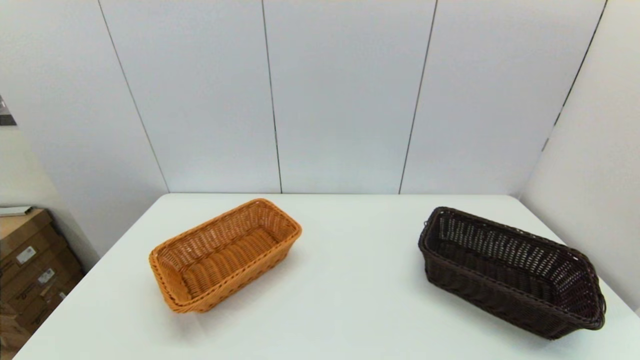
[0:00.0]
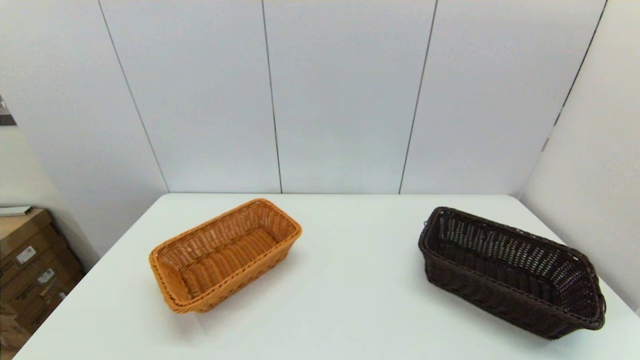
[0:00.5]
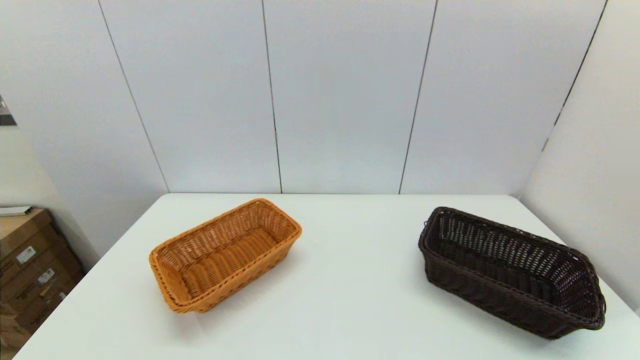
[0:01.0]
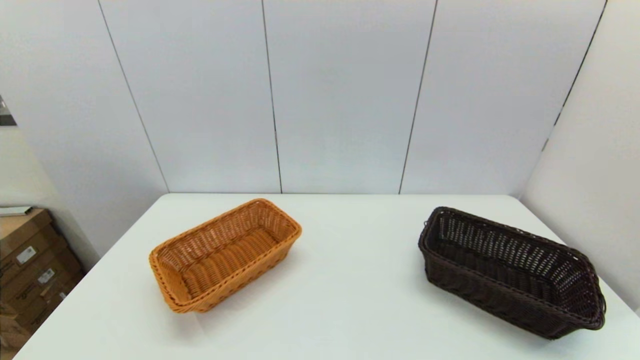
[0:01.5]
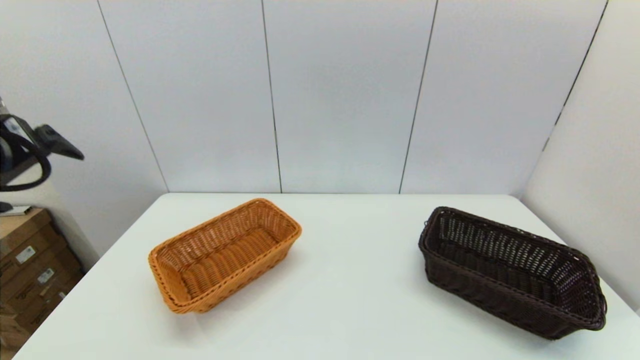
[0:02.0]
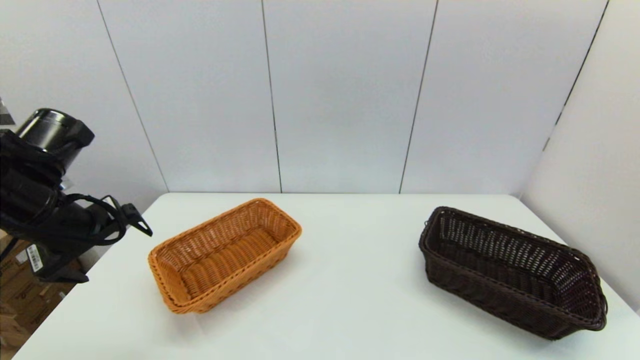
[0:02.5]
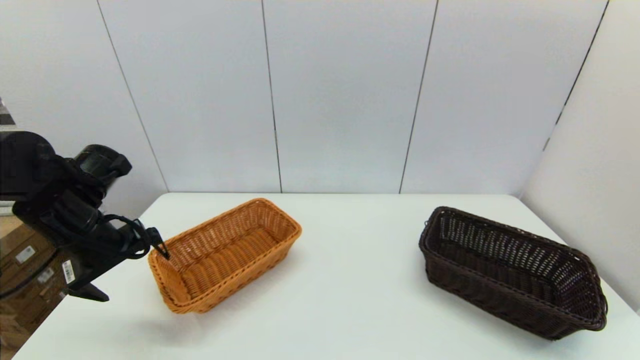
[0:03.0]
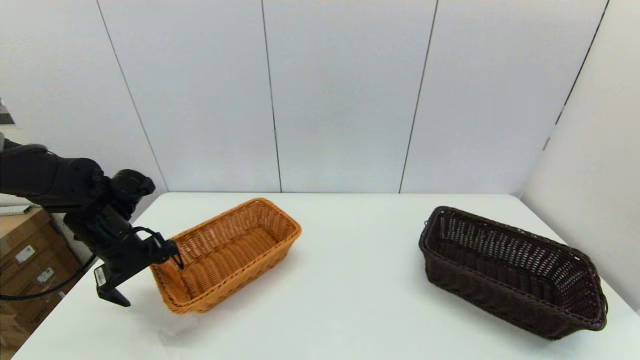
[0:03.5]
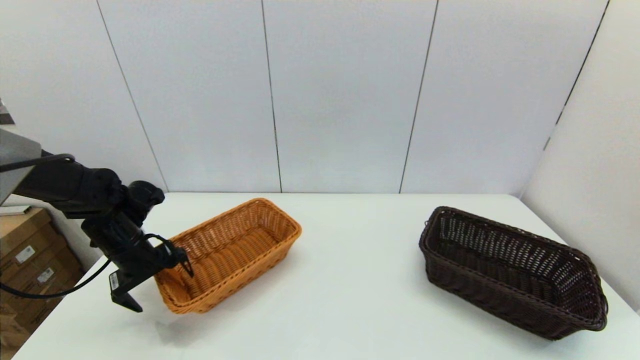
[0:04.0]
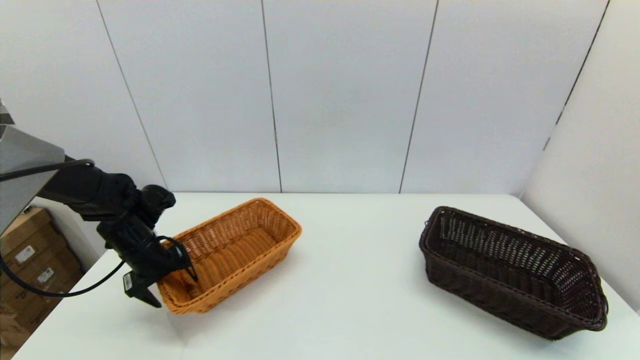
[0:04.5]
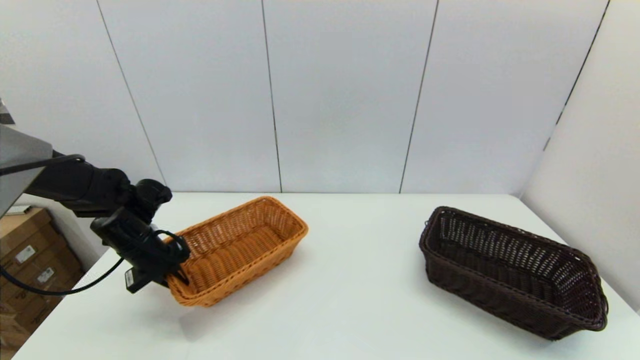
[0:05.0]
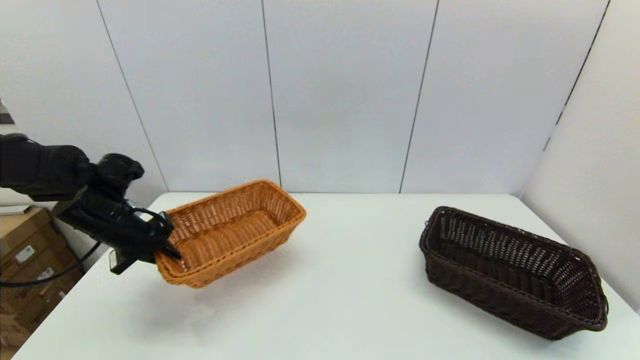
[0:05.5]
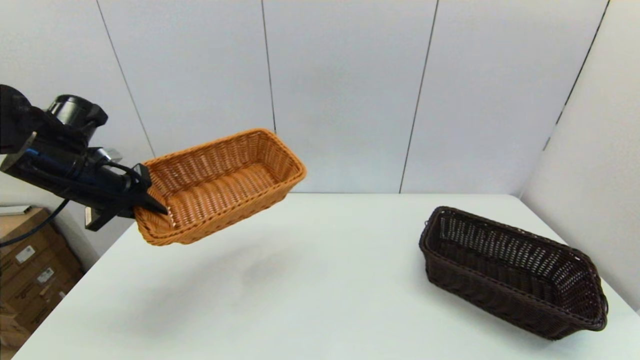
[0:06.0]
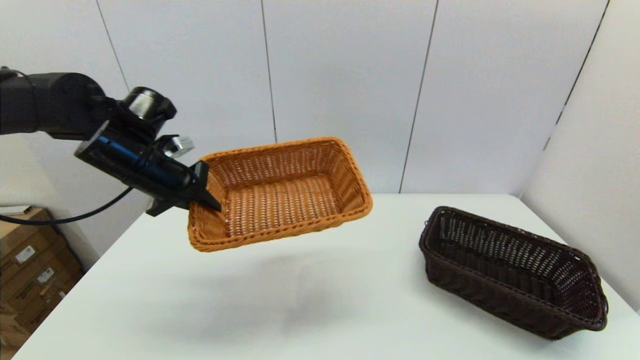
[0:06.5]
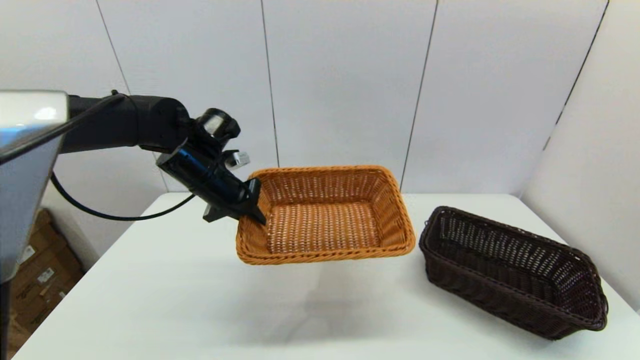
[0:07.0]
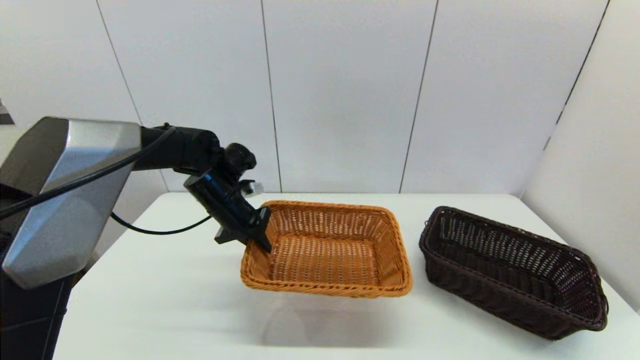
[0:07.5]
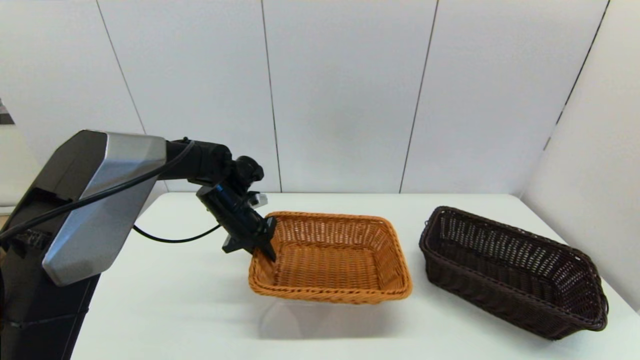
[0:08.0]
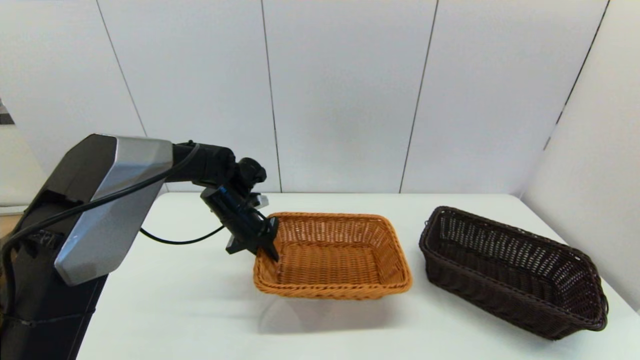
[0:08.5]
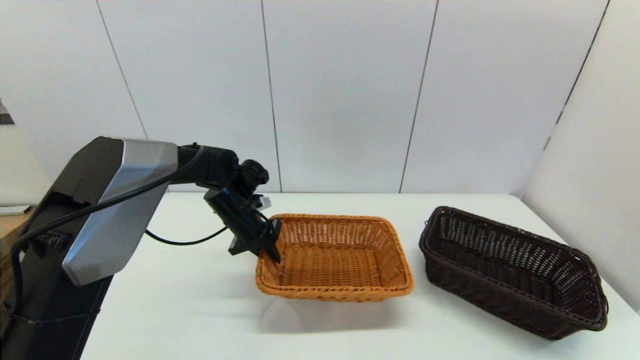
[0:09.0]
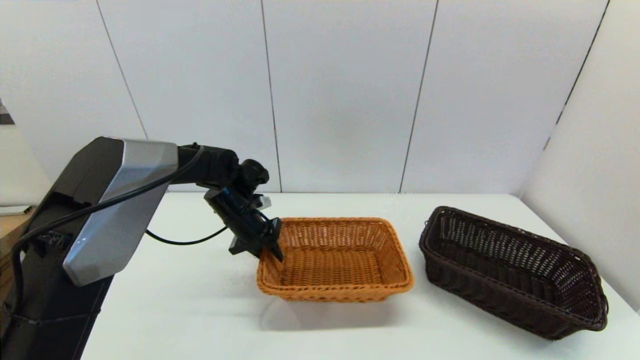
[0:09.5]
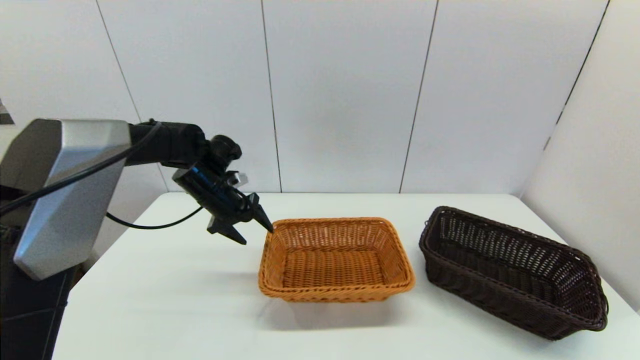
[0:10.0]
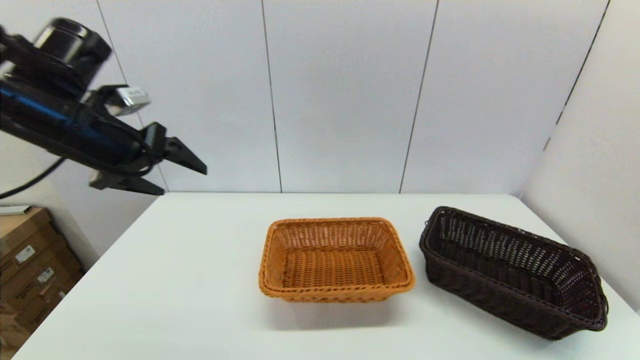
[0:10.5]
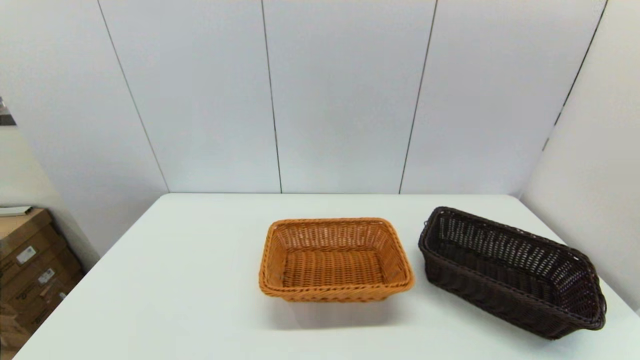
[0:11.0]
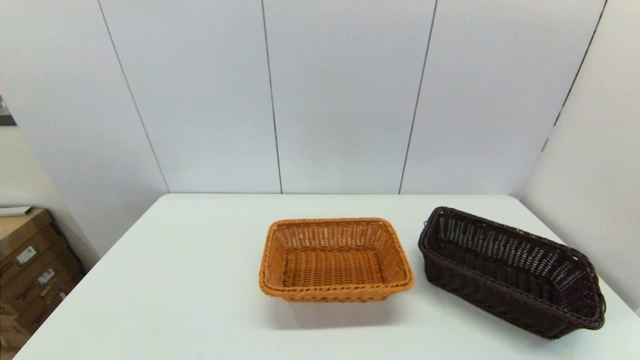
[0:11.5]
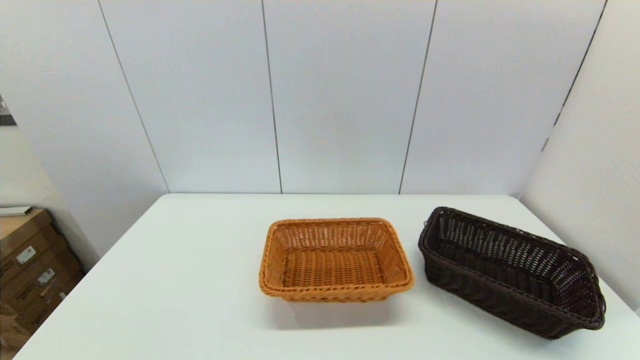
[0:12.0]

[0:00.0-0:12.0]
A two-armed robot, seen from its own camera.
Task of the whole recording: stack a basket on top of another basket.
Step, 0:02.0 to 0:05.0: Grasp the light basket with the left gripper.
Step, 0:05.5 to 0:10.0: Place the light basket on the middle of the table with the left gripper.
0:00.0 to 0:02.0: The left gripper is displaced upward and forward by approximately 30 cm.
0:02.0 to 0:04.0: The left gripper heads downward and forward, covering roughly 25 cm.
0:04.0 to 0:06.0: The left gripper travels upward by approximately 15 cm, and closes up.
0:06.0 to 0:08.0: The left gripper shifts roughly 20 cm to the right, downward and forward.
0:08.0 to 0:10.0: The left gripper moves approximately 5 cm, and opens.
0:10.0 to 0:12.0: The left gripper moves backward, about 50 cm.

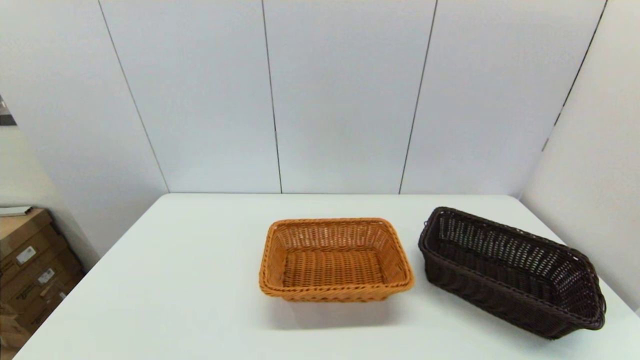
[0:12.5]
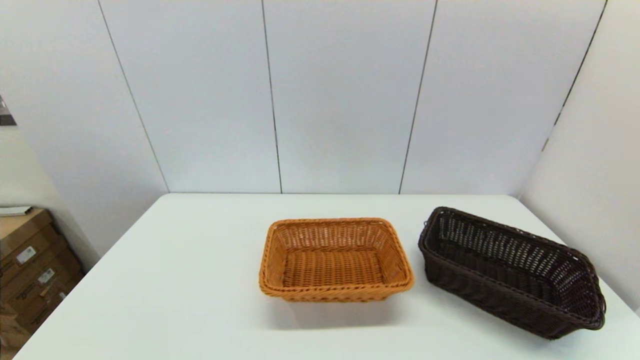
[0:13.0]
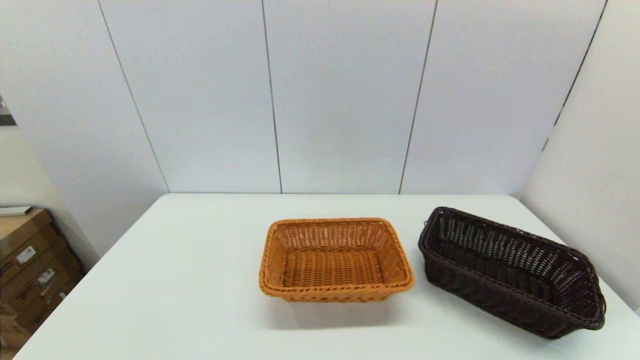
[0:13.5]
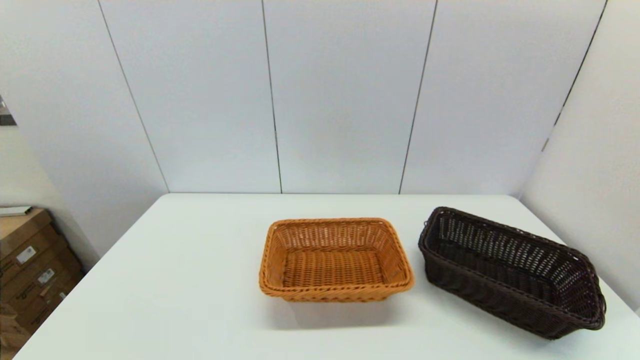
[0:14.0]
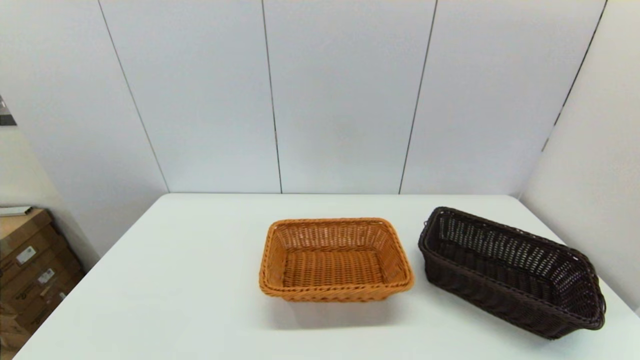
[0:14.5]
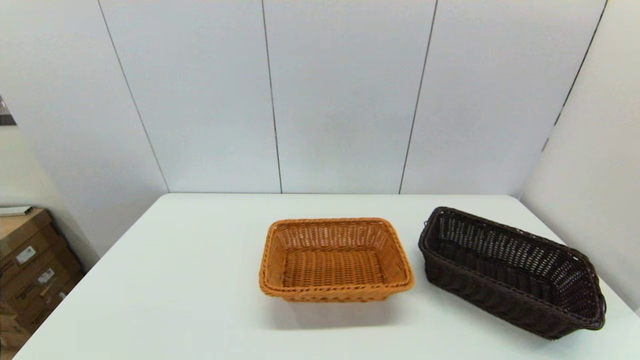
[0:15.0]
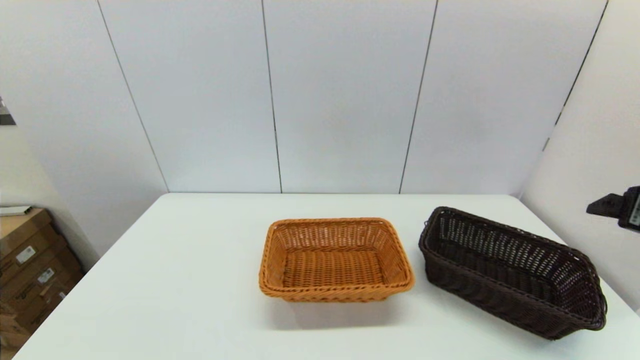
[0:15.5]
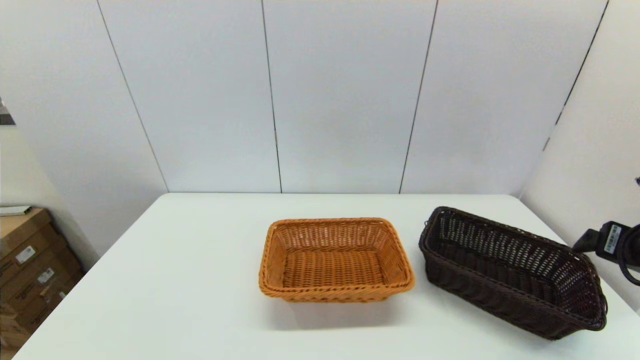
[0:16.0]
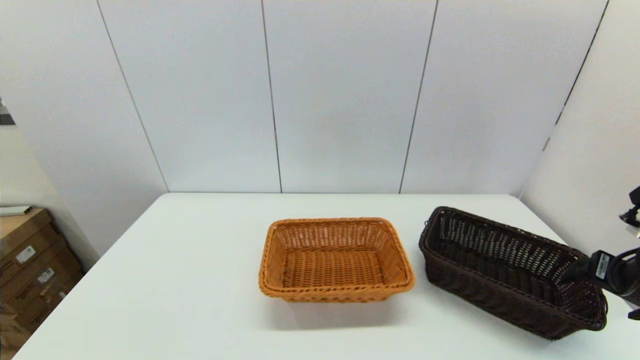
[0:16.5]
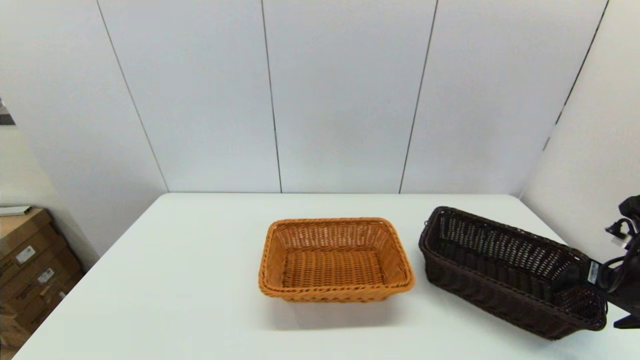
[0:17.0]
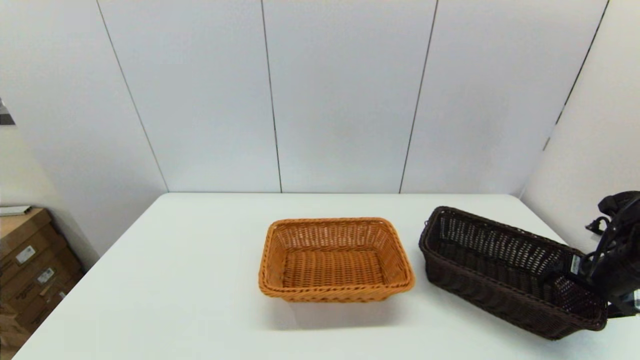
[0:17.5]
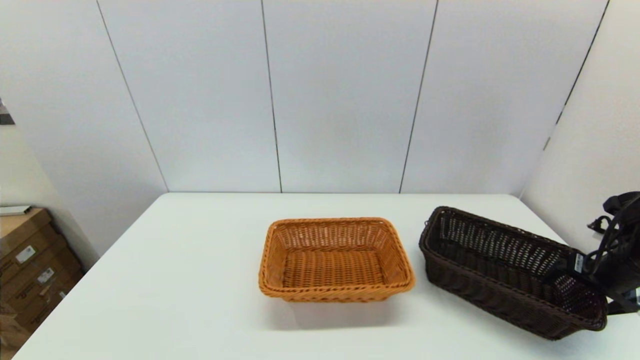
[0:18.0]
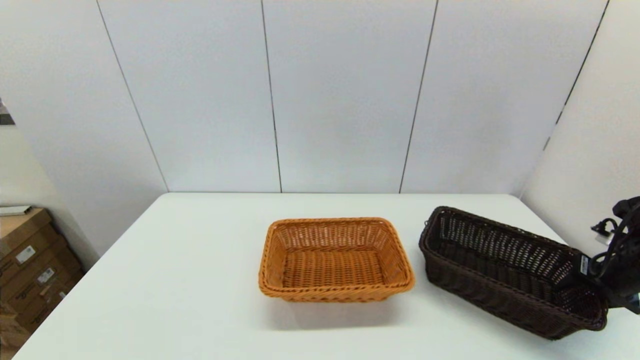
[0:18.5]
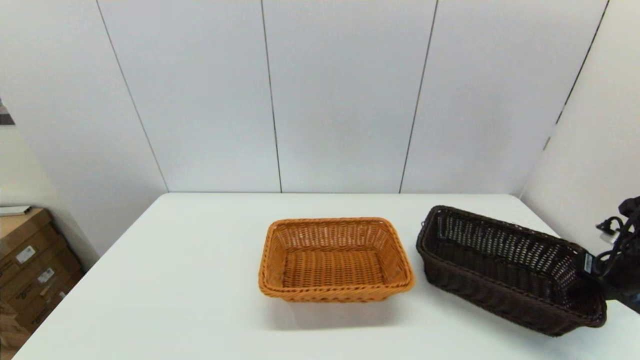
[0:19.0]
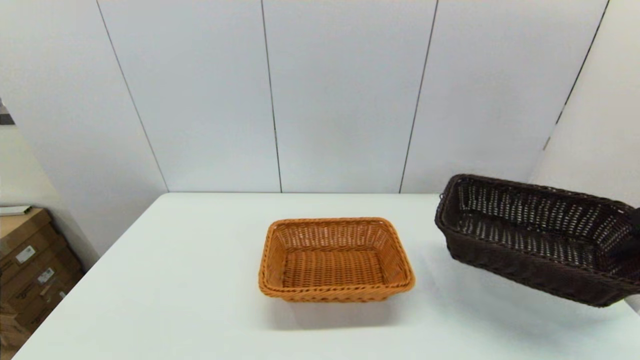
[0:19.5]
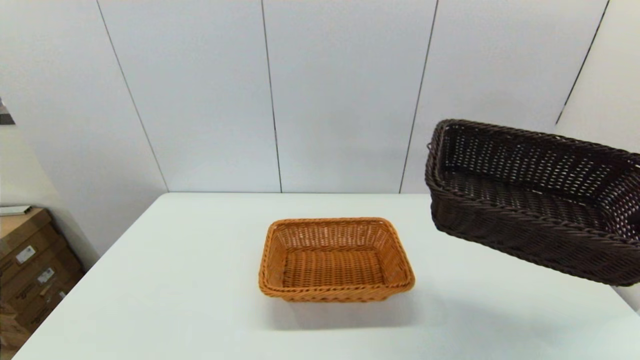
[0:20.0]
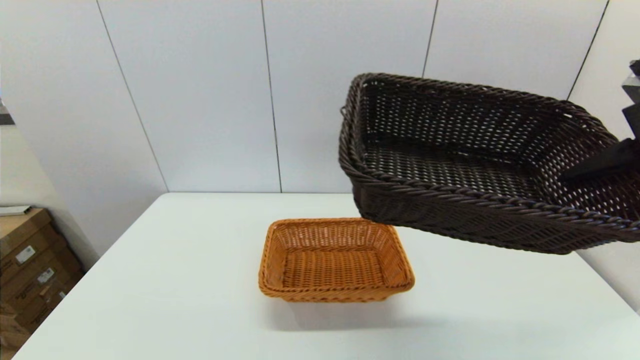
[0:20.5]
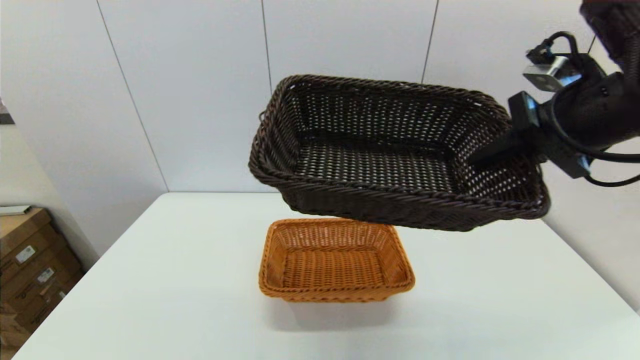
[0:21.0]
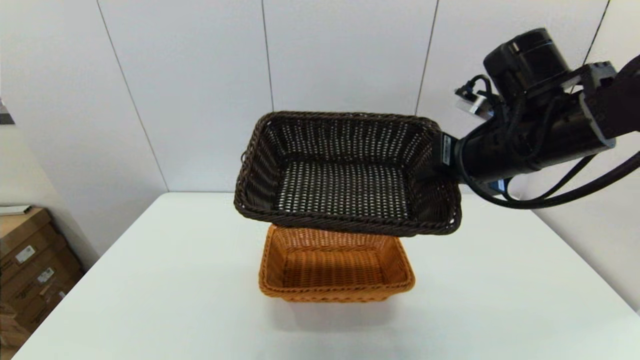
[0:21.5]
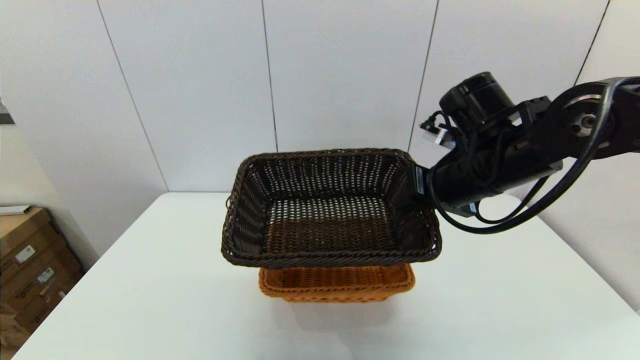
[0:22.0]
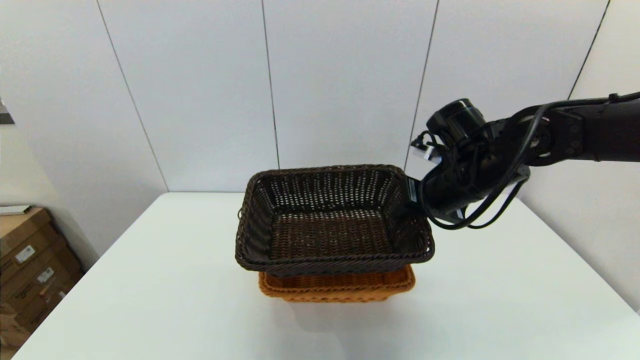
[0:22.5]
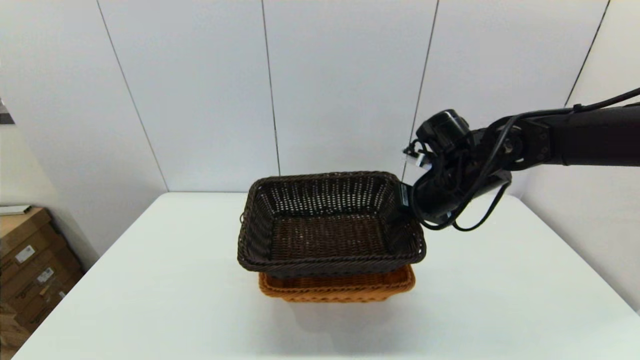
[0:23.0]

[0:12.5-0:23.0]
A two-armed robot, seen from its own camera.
Task of the whole recording: stack a basket on top of another basket.
Step, 0:12.5 to 0:18.5: Grasp the dark basket with the right gripper.
0:14.5 to 0:16.5: The right gripper moves forward, approximately 25 cm.
0:16.5 to 0:19.0: The right gripper travels to the right and downward by roughly 10 cm, and closes.
0:19.0 to 0:21.0: The right gripper shifts approximately 30 cm upward and to the left.
0:21.0 to 0:23.0: The right gripper moves downward, forward and to the left, about 20 cm.
